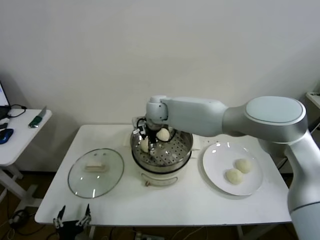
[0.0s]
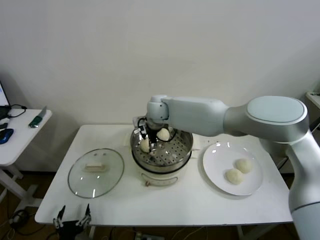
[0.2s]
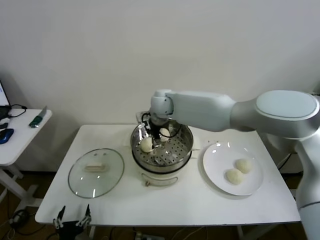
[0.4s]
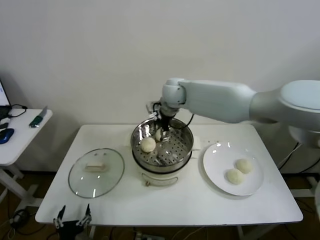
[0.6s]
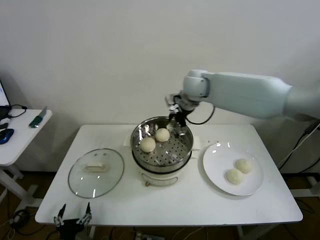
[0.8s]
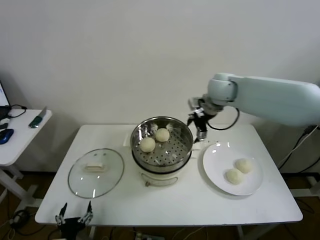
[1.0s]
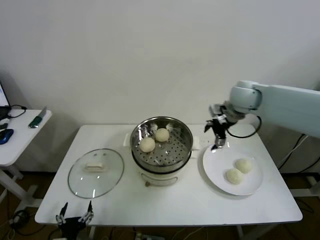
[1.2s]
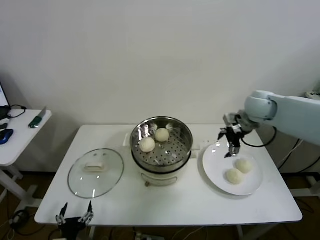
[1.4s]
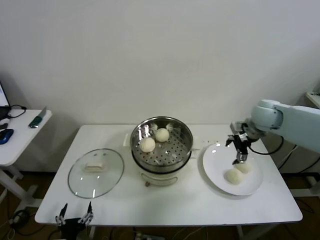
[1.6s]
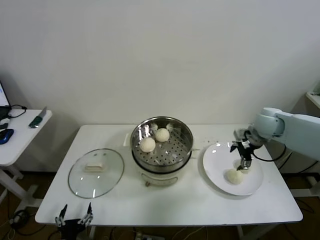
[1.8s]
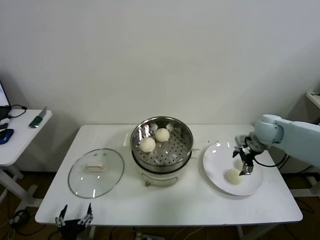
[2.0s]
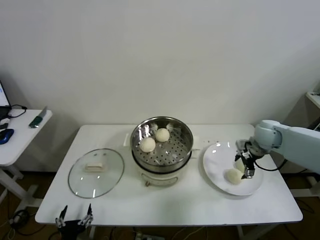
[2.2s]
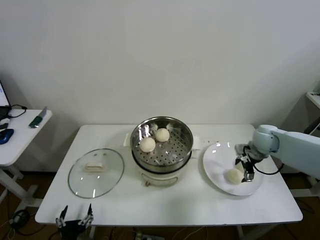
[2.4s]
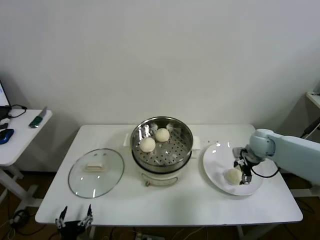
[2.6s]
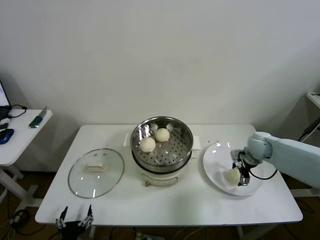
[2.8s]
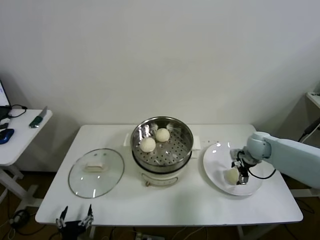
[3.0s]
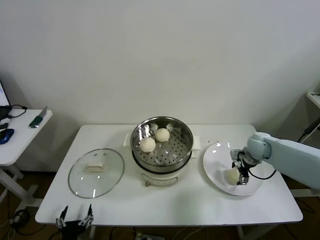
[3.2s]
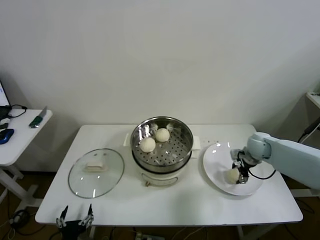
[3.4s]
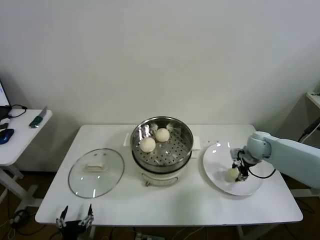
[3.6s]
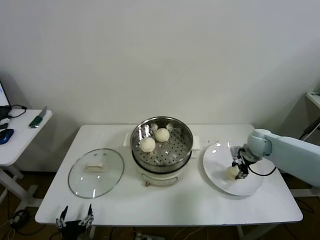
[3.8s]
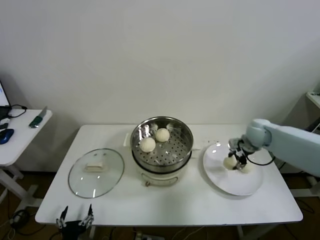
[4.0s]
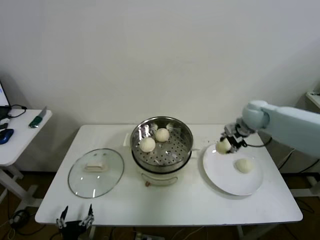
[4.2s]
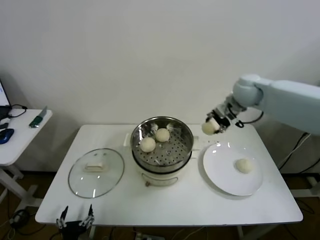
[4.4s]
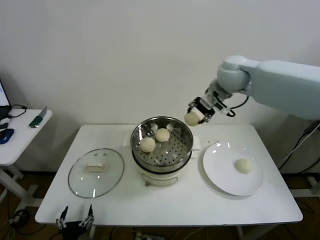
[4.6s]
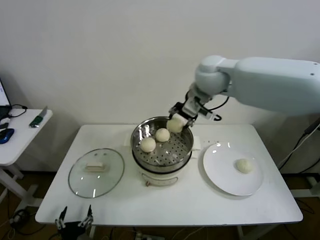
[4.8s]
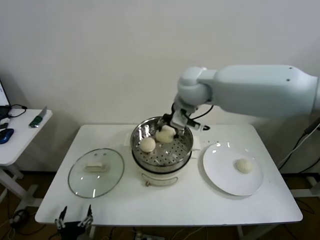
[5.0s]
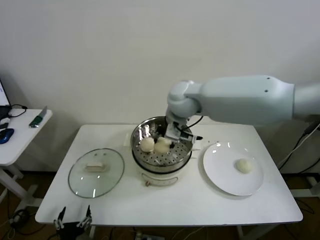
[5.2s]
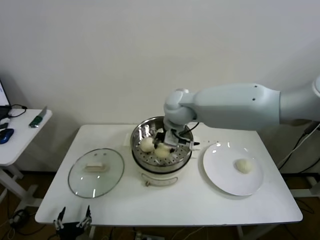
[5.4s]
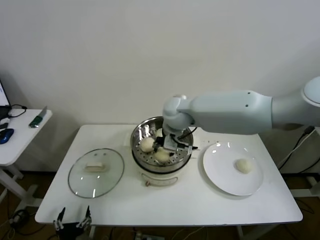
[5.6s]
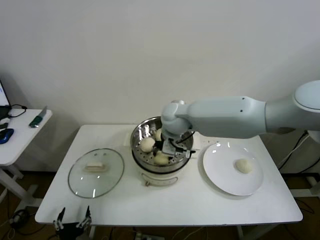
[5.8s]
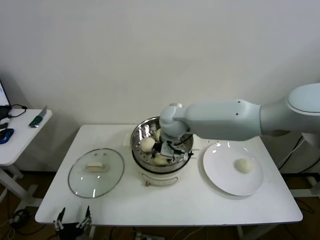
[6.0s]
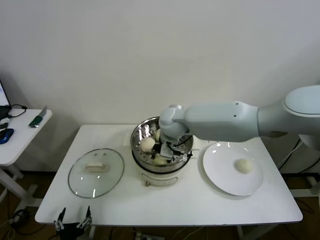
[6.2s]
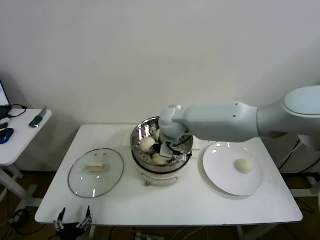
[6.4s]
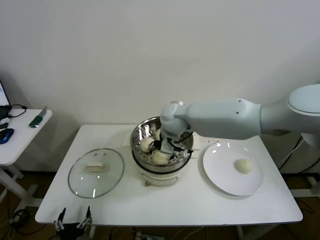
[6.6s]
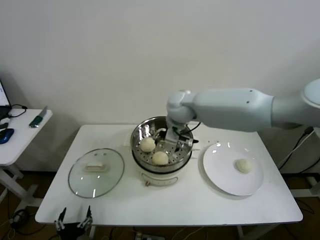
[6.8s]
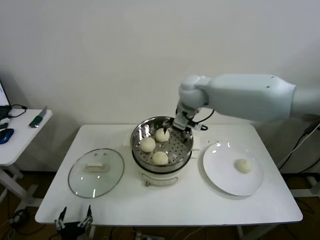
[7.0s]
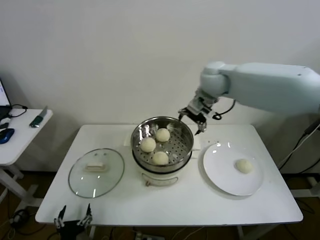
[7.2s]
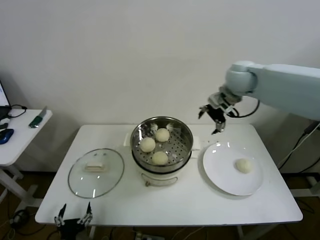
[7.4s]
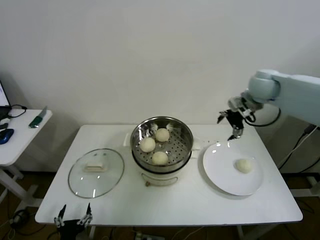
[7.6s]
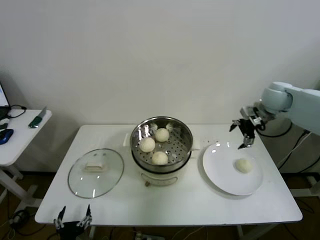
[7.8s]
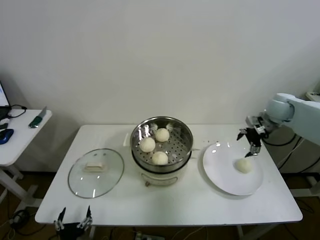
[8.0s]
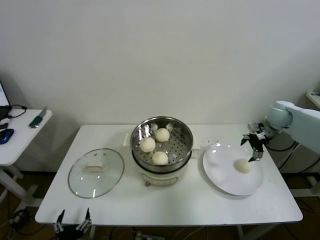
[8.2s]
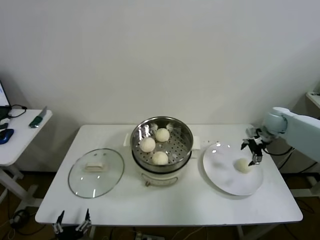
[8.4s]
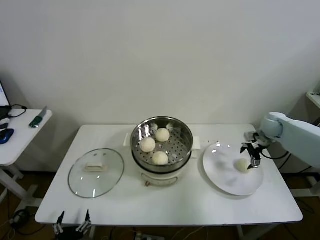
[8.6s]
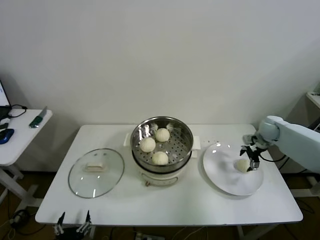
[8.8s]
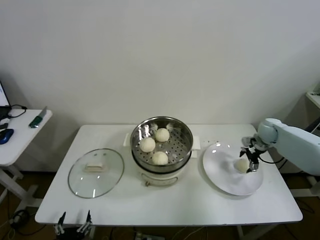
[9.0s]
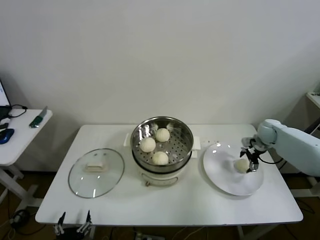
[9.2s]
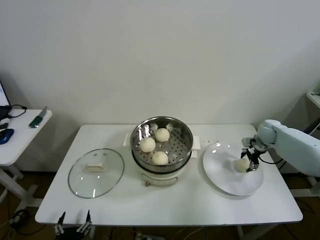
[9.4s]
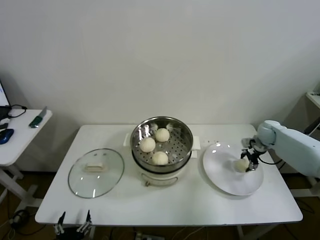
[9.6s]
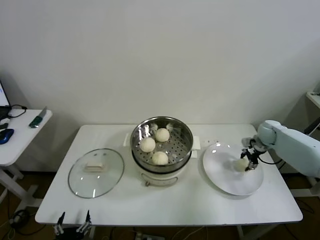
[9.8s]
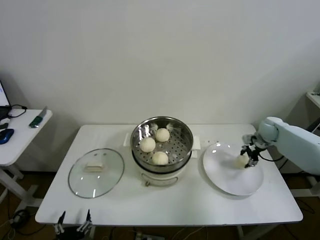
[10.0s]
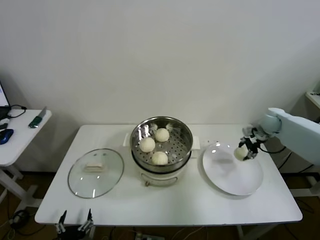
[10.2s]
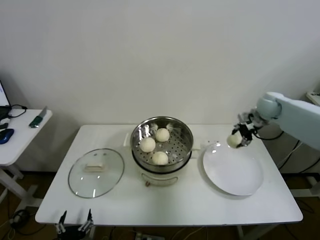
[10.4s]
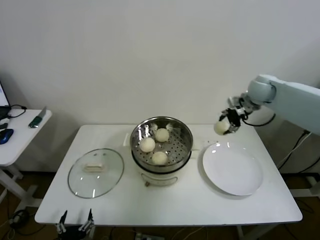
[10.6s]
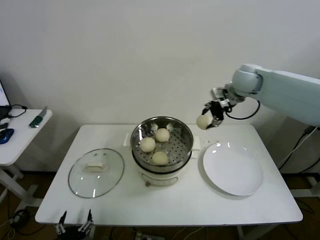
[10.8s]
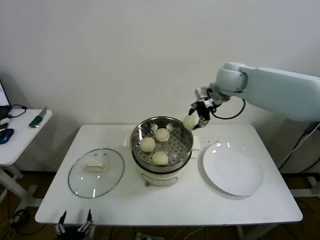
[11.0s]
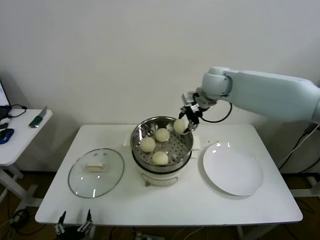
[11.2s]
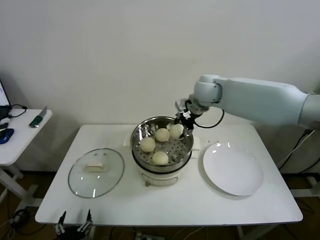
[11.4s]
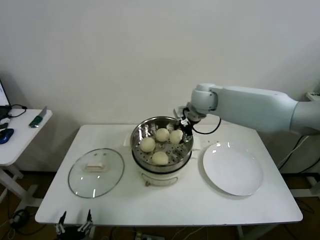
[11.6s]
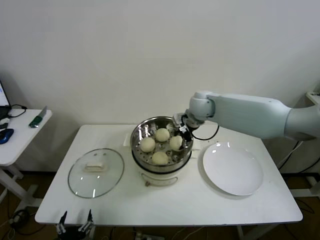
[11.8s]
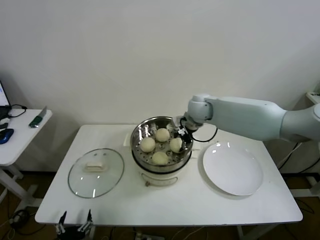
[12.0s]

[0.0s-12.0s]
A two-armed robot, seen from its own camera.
Step, 0.4s to 3.4s: Grasp the baozi in the plate with right gripper.
Step, 3.6s to 6.6s: Place the baozi on the steamer with right gripper.
Step, 6.8s to 9.6s: Grasp the baozi in the plate with right gripper.
0.0s to 1.6s: The right gripper moves to the right, roughly 35 cm, and opens.
1.6s to 3.0s: The right gripper travels downward by some 15 cm.
3.0s to 4.4s: The right gripper goes roughly 25 cm upward and to the left, and closes up.
4.4s to 6.0s: The right gripper is displaced to the left by roughly 25 cm.
6.0s to 7.6s: The right gripper moves to the right, about 30 cm, and opens its fingers.
7.6s to 9.0s: The right gripper travels downward and to the right by roughly 25 cm.
9.0s to 10.4s: The right gripper moves upward, approximately 10 cm, and closes.
10.4s to 12.0s: The right gripper moves to the left, approximately 25 cm.

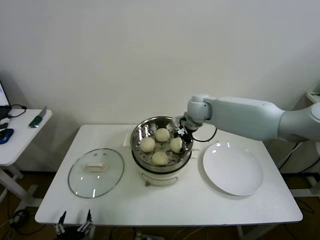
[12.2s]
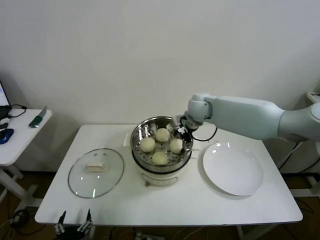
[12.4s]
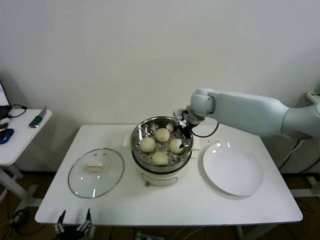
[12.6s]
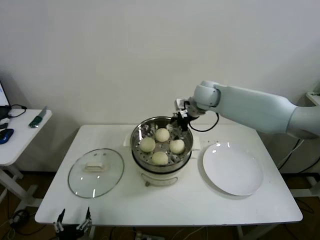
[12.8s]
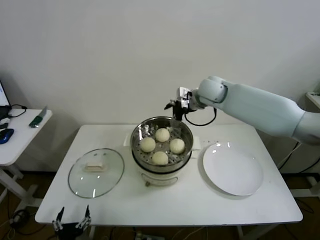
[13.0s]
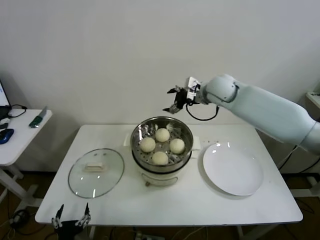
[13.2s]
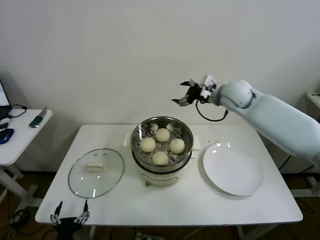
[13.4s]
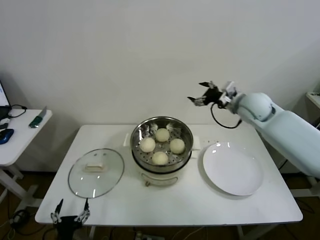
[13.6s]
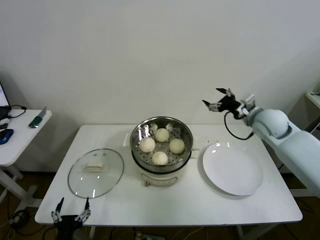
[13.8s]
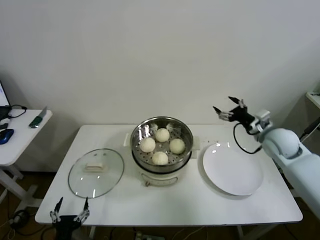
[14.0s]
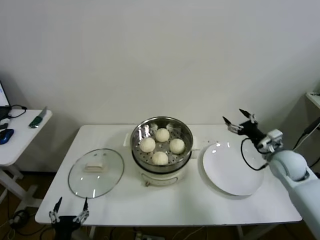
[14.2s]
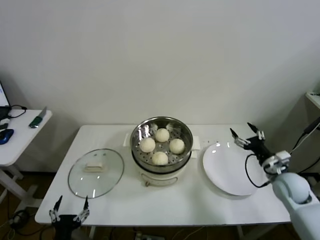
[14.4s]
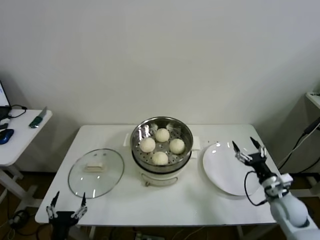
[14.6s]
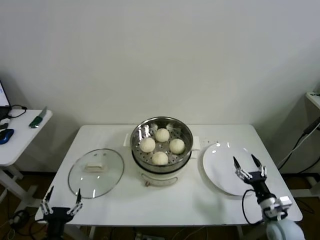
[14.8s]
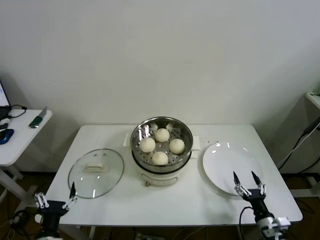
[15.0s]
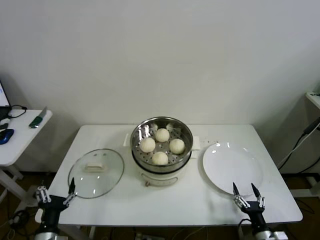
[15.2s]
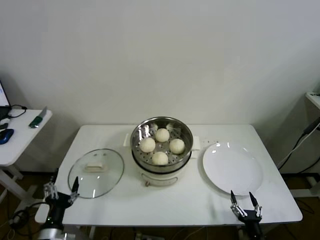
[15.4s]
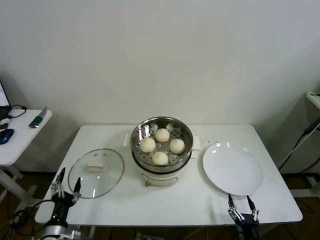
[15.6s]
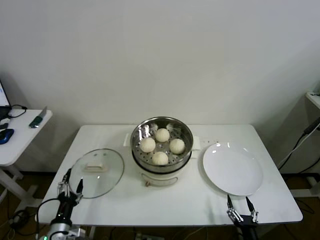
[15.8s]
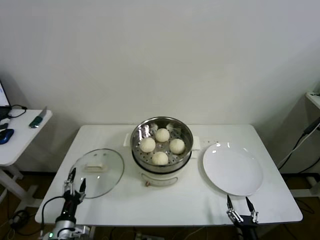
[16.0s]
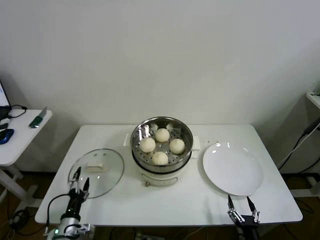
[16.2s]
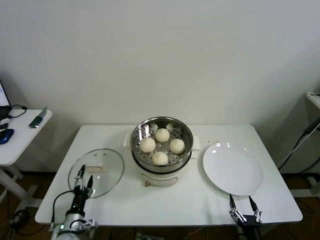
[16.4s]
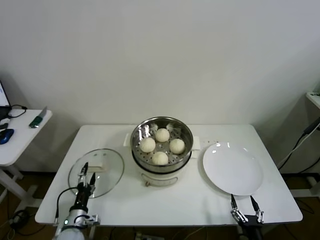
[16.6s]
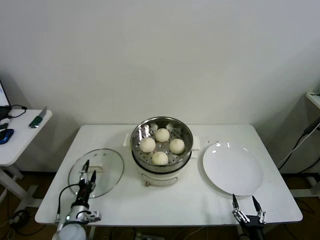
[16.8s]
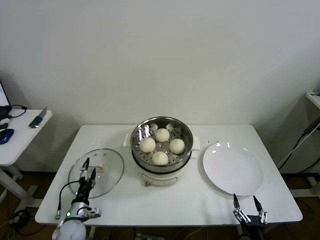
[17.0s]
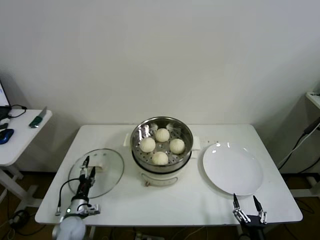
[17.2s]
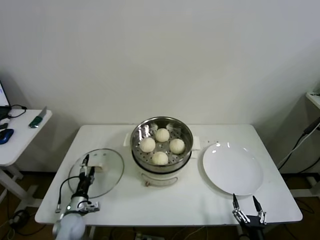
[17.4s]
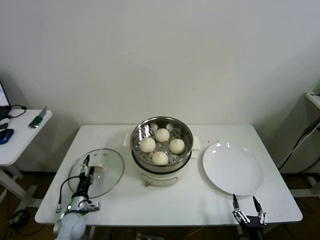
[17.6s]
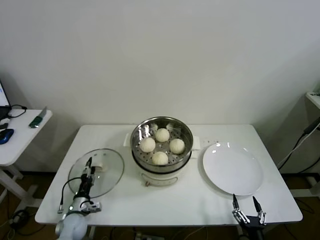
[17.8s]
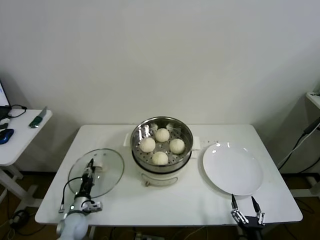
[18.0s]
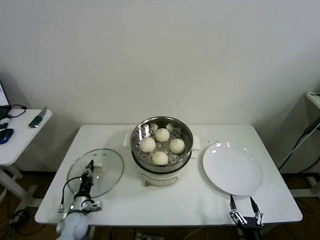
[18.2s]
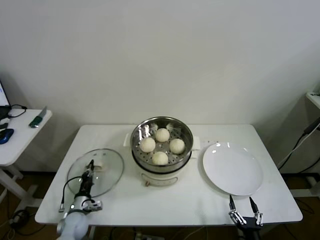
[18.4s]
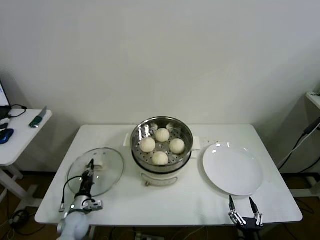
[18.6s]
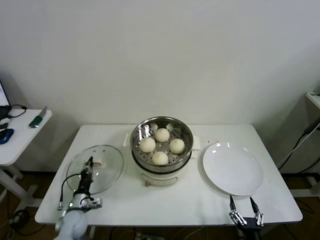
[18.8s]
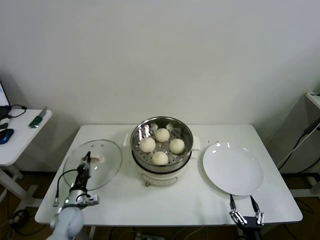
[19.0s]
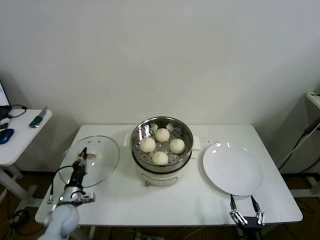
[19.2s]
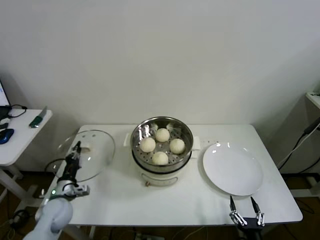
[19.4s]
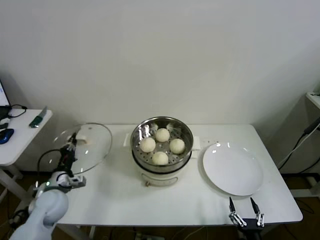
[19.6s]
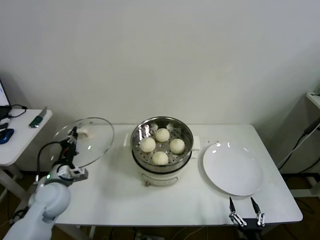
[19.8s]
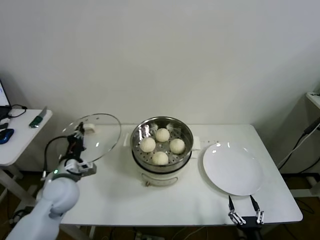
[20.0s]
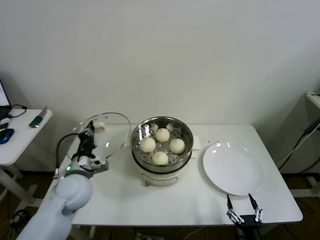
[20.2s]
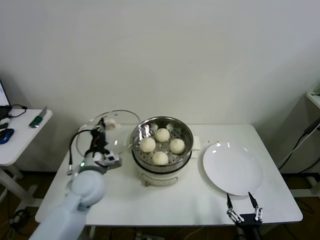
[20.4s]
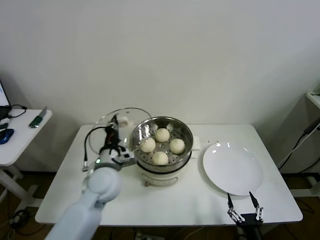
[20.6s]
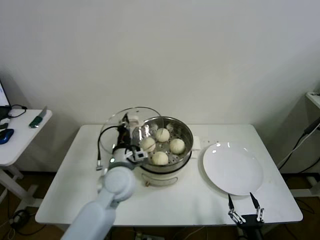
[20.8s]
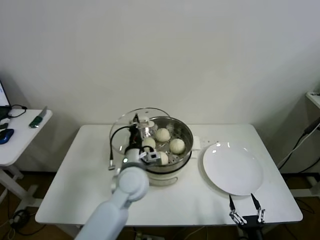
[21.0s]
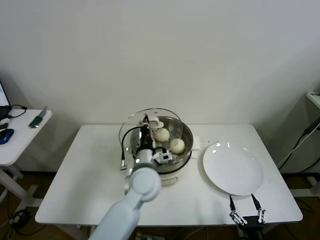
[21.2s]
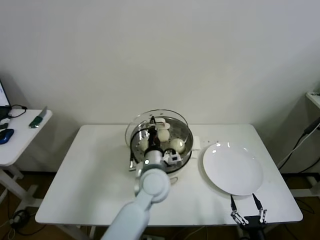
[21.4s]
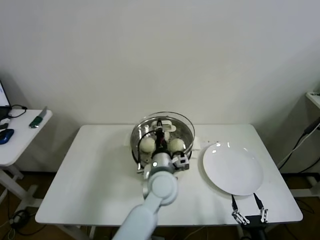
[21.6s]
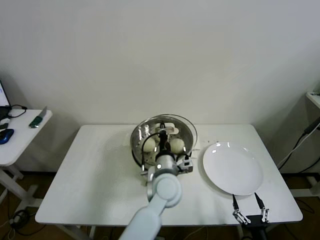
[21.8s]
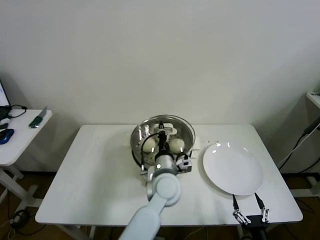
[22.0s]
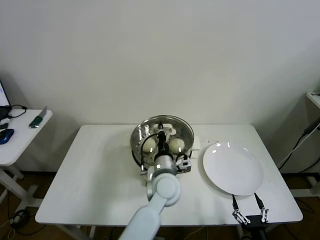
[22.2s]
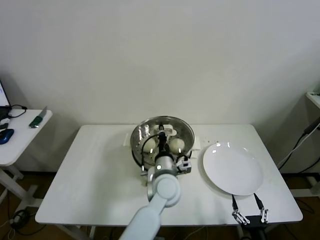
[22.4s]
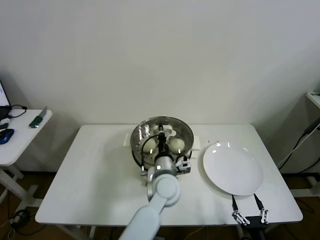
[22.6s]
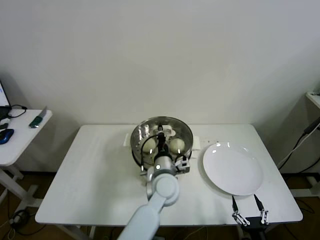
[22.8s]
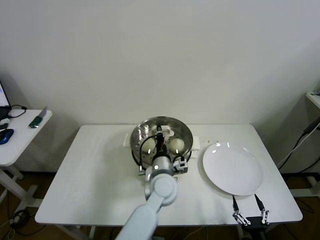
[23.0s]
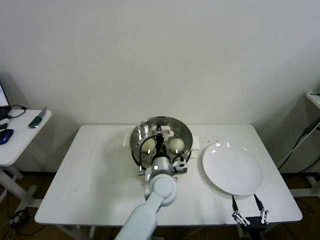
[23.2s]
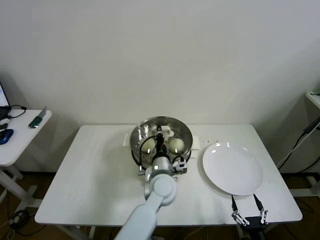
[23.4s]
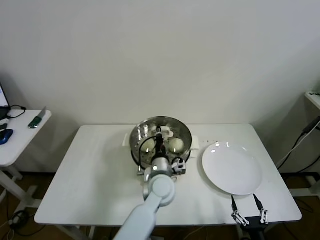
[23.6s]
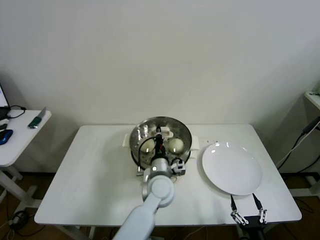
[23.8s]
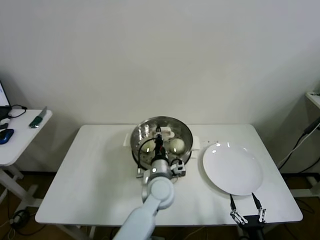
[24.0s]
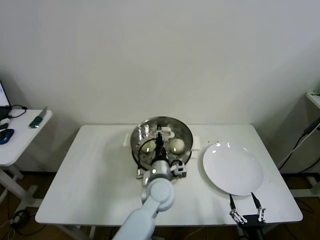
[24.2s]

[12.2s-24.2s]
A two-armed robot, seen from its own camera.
Step, 12.6s to 18.2s: Grasp the pot lid with left gripper.
Step, 18.4s to 24.0s: Place the pot lid on the steamer with left gripper.
12.2s to 13.8s: The right gripper travels to the right by some 20 cm, and opens.
13.8s to 15.2s: The right gripper is displaced downward and backward by about 50 cm.
15.2s to 16.6s: The left gripper moves downward and forward, about 15 cm. Meanwhile the right gripper goes some 5 cm backward.
16.6s to 18.2s: The left gripper shifts roughly 5 cm forward, and closes.
18.2s to 19.8s: The left gripper moves upward, roughly 20 cm.
19.8s to 21.2s: The left gripper shifts about 30 cm to the right.
21.2s to 22.6s: The left gripper goes some 10 cm to the right.
22.6s to 24.2s: The left gripper opens its fingers.
